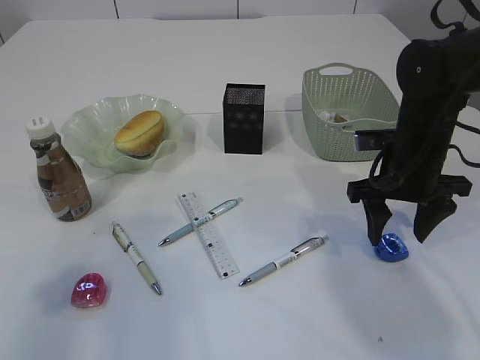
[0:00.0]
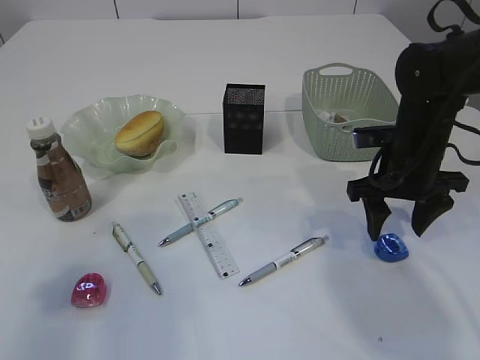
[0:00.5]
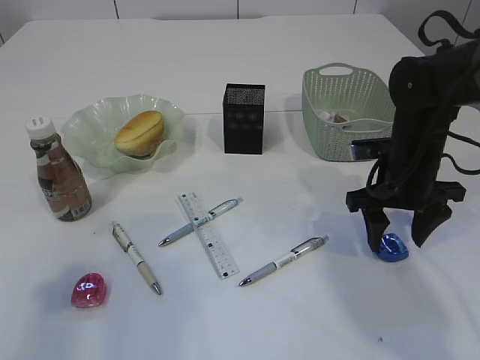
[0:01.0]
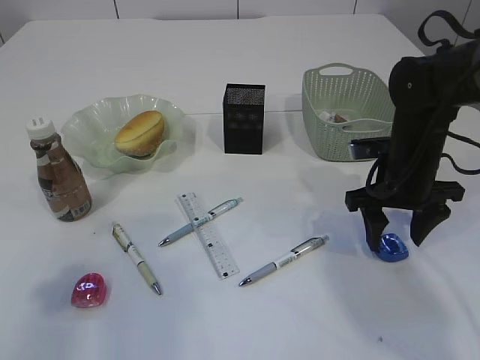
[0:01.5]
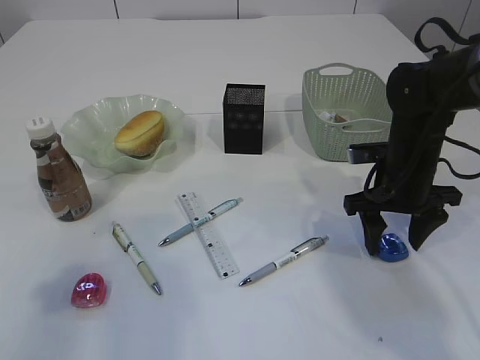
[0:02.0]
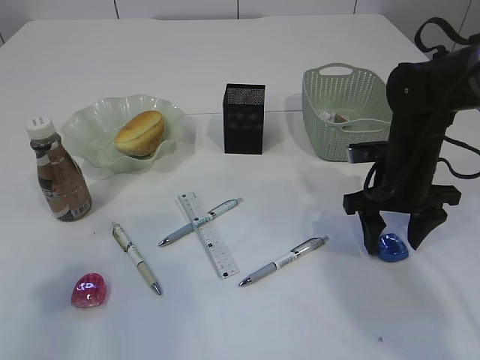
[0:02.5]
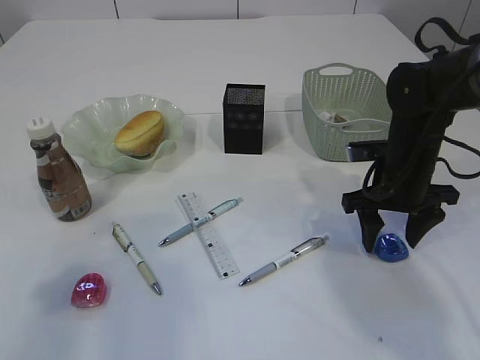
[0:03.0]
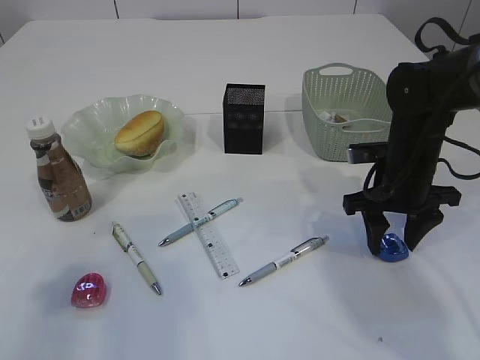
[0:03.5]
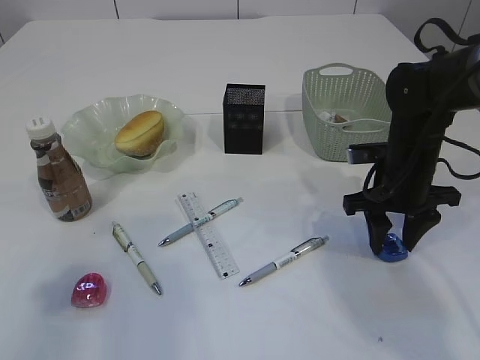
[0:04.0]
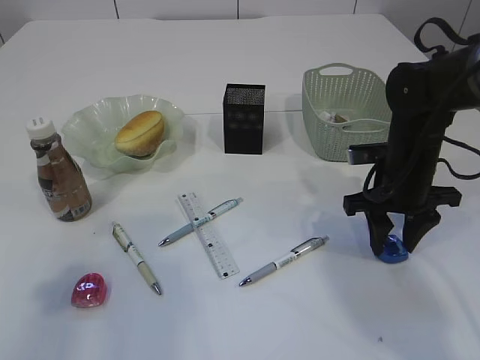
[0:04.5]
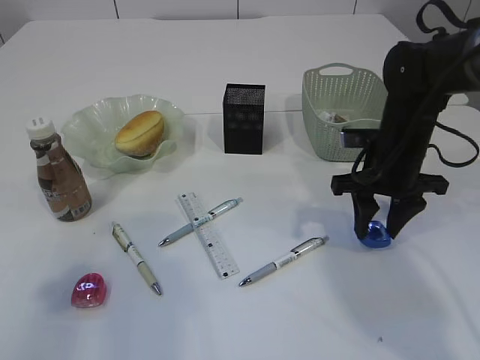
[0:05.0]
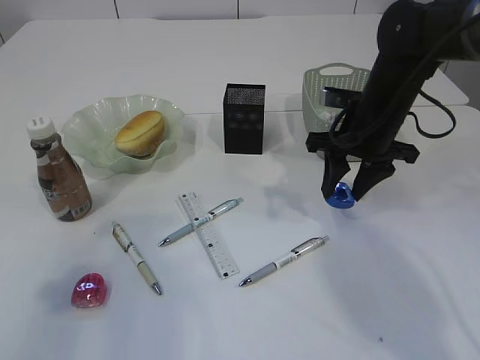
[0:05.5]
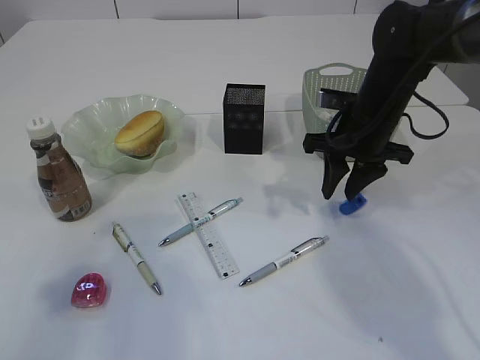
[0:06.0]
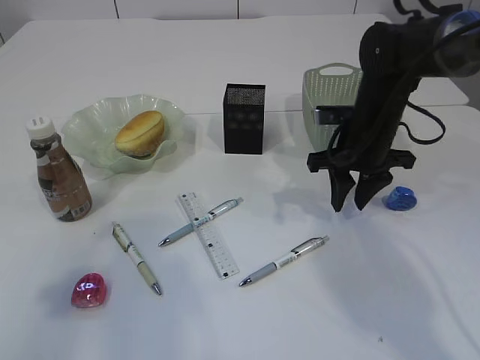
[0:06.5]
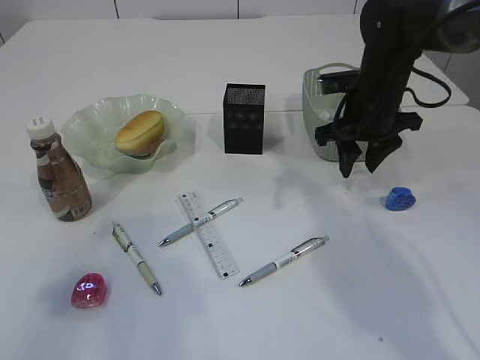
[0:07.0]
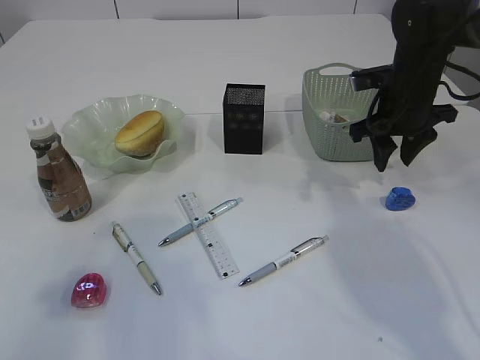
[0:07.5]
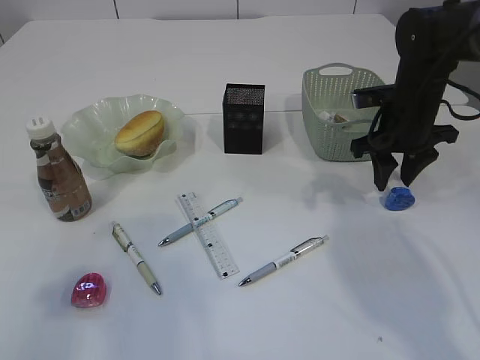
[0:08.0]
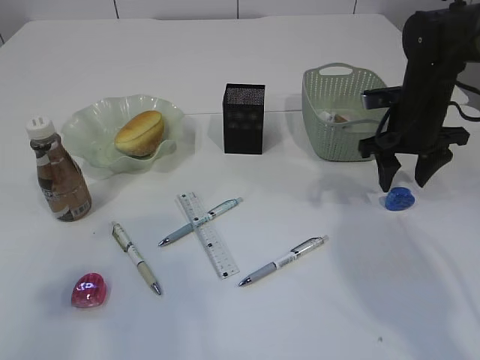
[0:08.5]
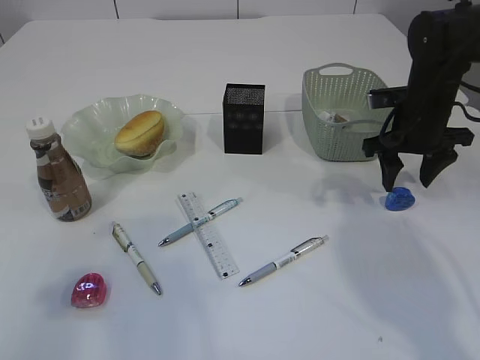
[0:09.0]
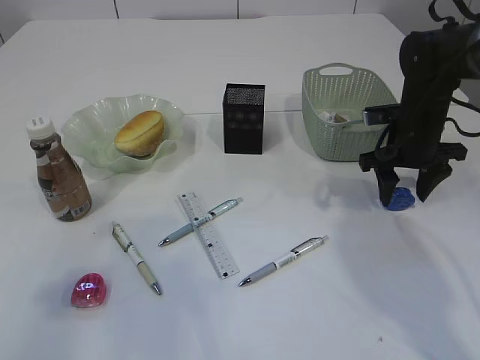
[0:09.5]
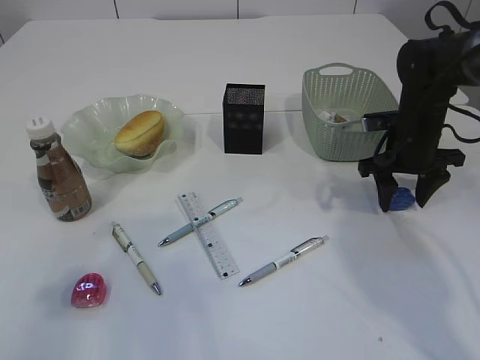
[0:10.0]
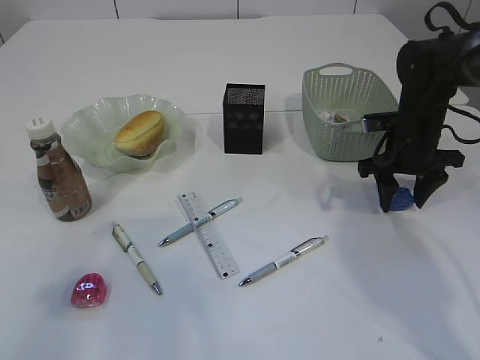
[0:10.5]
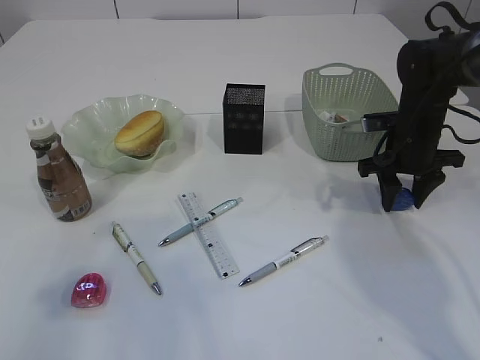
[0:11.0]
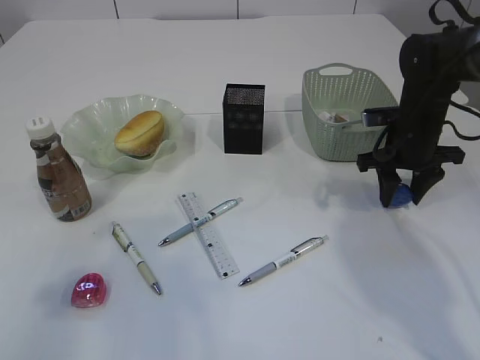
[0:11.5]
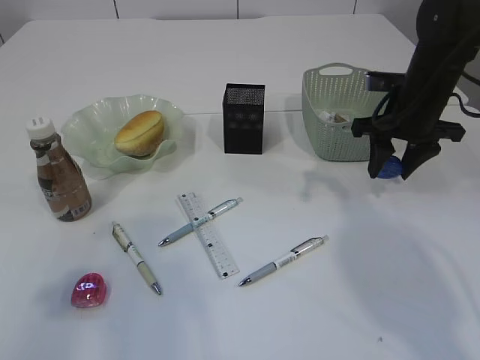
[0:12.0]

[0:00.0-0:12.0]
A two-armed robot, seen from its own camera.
0:00.0 to 0:02.0: The grippers stay close to where they were, moving slightly.
0:02.0 to 0:04.0: Neither gripper changes place.
0:04.0 to 0:06.0: The right gripper travels upward by some 5 cm.
0:06.0 to 0:08.0: The right gripper travels to the right by about 5 cm.
0:08.0 to 0:10.0: The grippers stay close to where they were, moving slightly.
0:10.0 to 0:12.0: The right gripper heads upward, covering roughly 5 cm.

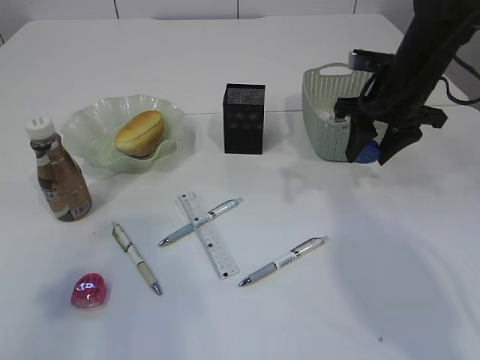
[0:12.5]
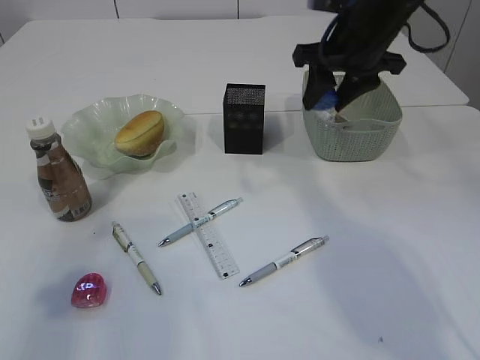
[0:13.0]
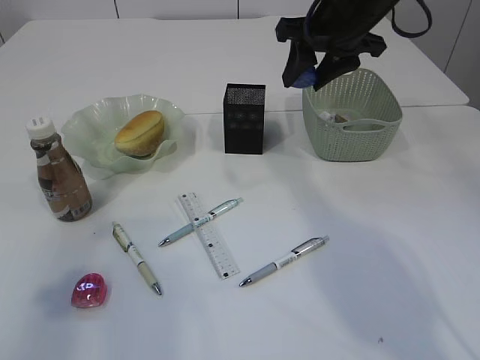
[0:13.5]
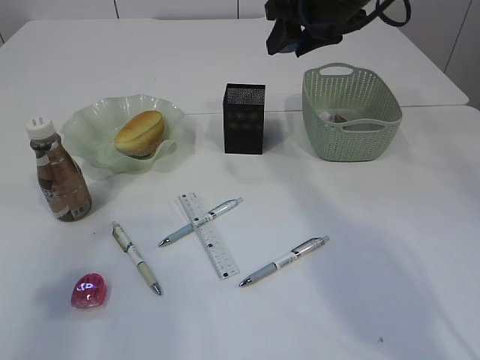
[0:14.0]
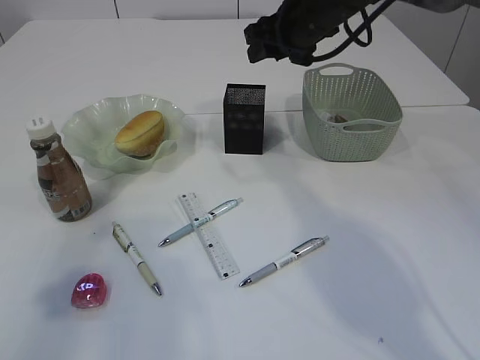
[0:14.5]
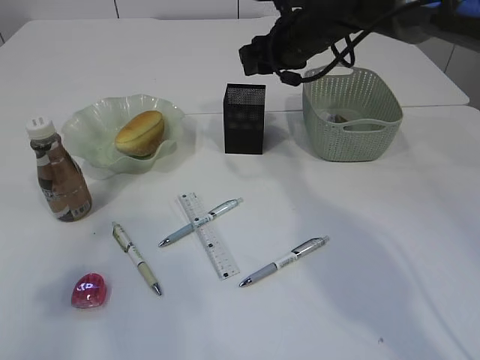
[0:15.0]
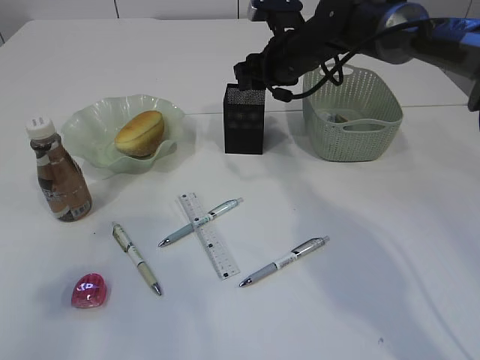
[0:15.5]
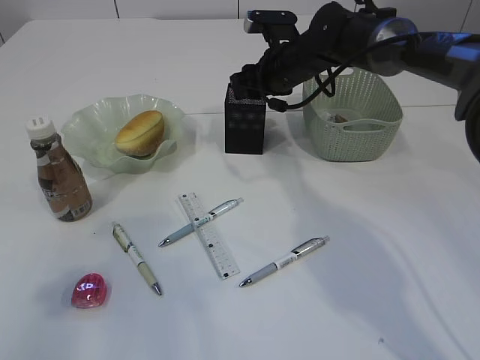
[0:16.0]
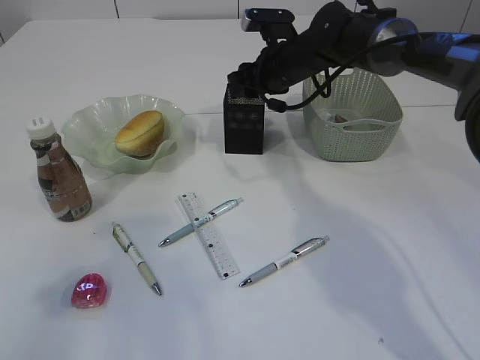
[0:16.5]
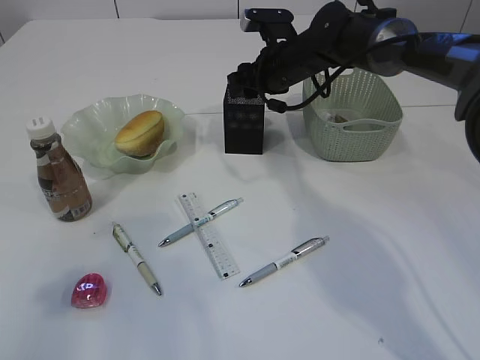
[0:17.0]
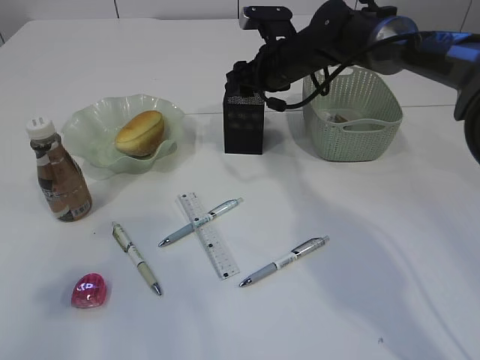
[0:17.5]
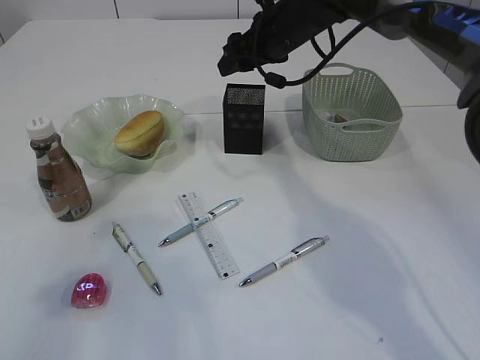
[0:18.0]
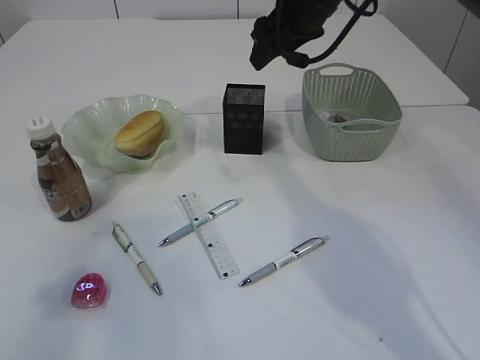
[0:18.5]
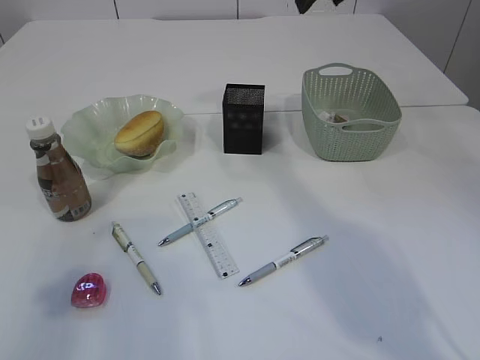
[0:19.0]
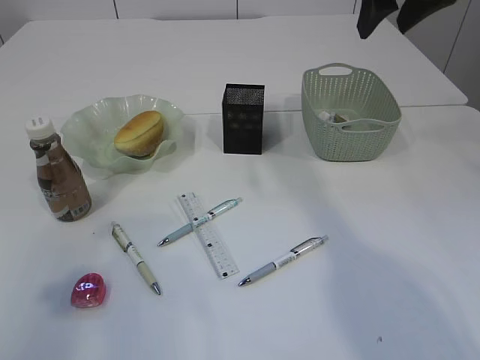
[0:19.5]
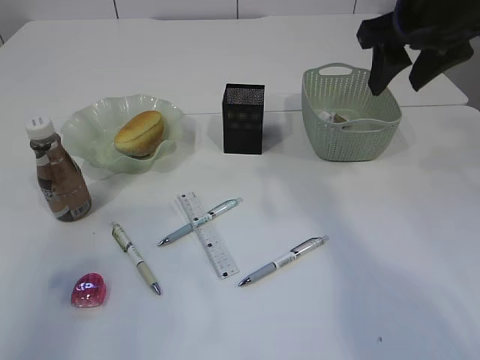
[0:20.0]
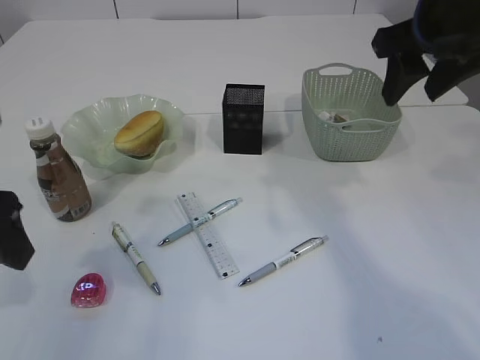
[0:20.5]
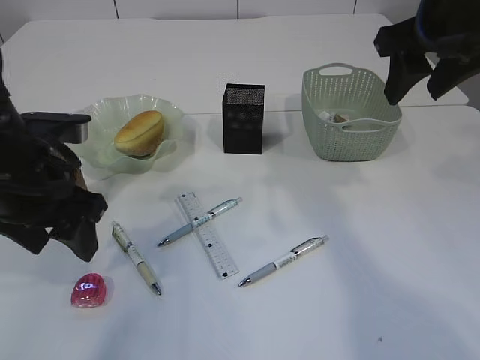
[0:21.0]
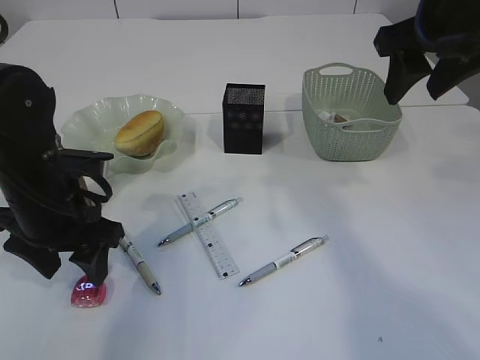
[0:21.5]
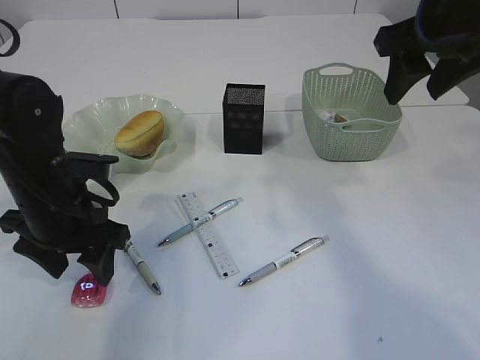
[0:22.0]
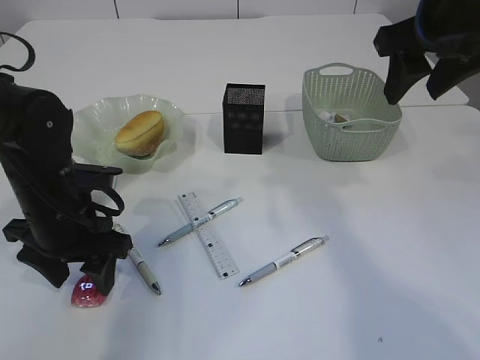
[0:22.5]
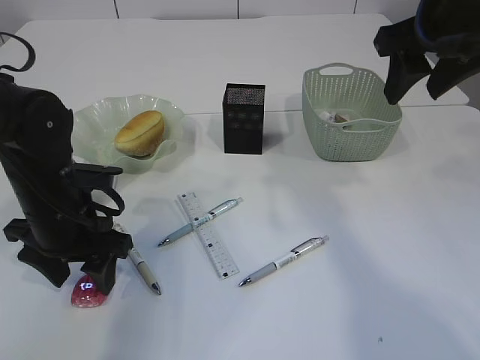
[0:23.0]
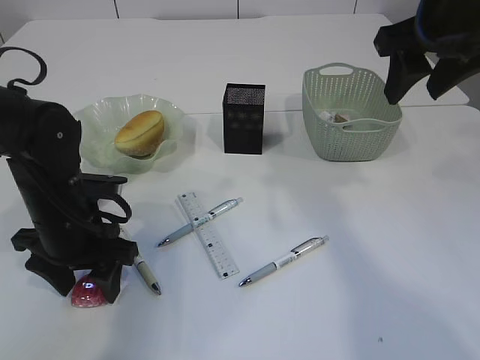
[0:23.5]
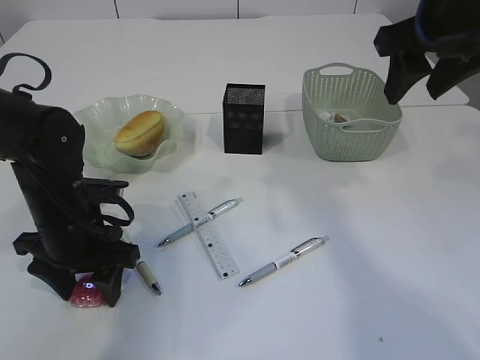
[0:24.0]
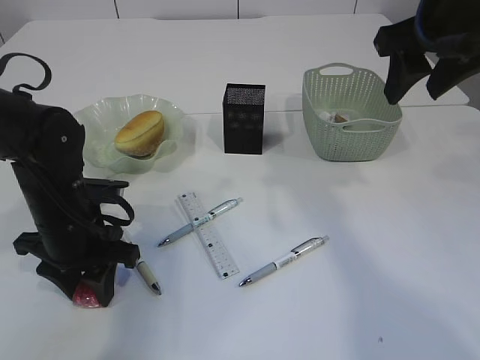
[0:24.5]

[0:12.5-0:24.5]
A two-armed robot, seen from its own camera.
Step, 0:12.5 to 0:18.0: Place the blue pencil sharpener into the pen holder.
0:12.5 to 0:14.5: The right gripper travels to the left, forward and upward by some 15 cm.
0:14.5 to 0:16.5: The right gripper moves downward, roughly 10 cm.
0:16.5 to 0:18.5: The right gripper heads upward, covering some 10 cm.
0:18.5 to 0:20.5: The right gripper travels backward and to the right by about 20 cm. Meanwhile the left gripper is displaced forward, downward and to the right by about 10 cm.
0:20.5 to 0:22.5: The left gripper is displaced downward, forward and to the right by roughly 15 cm.
0:22.5 to 0:24.5: The left gripper closes its fingers.

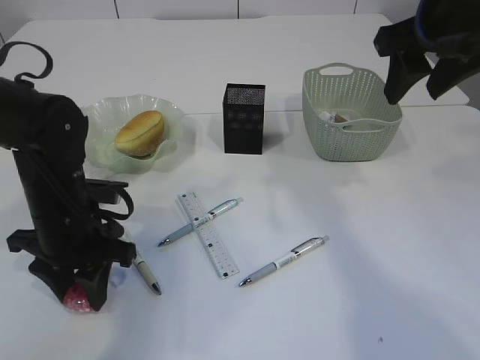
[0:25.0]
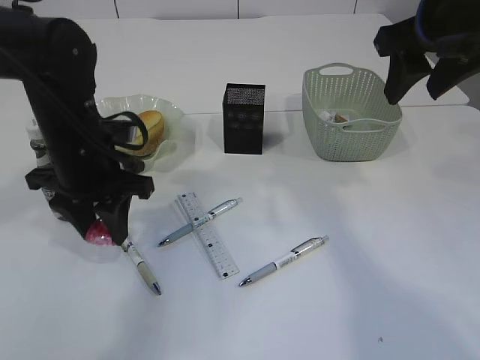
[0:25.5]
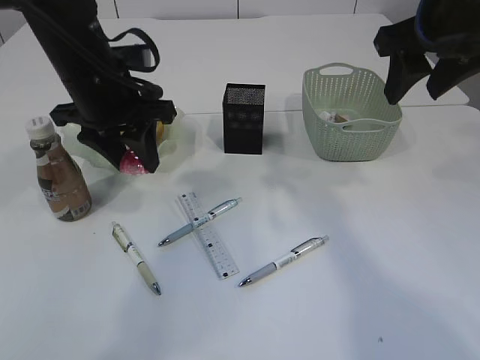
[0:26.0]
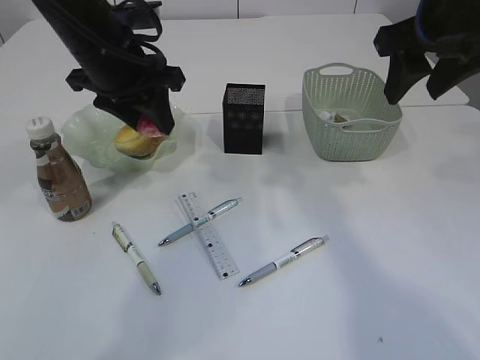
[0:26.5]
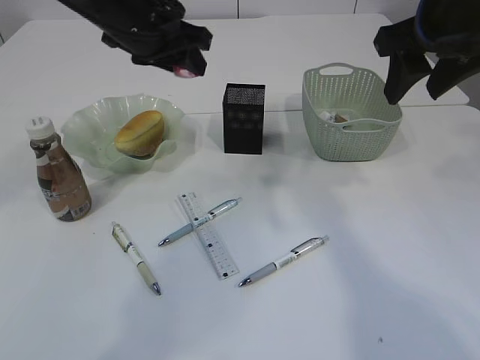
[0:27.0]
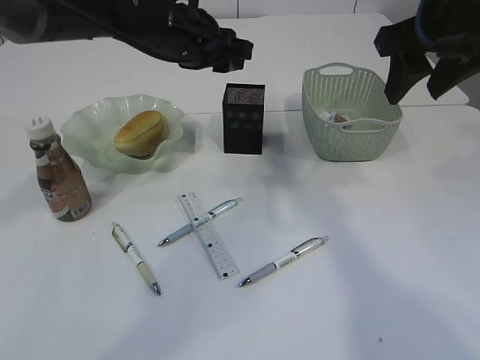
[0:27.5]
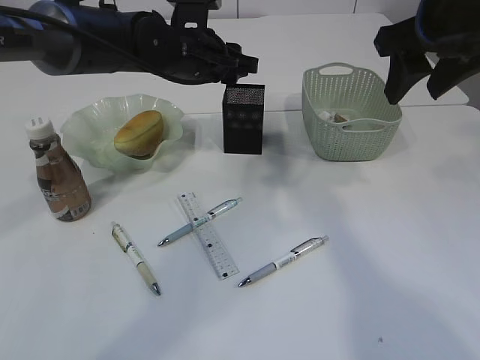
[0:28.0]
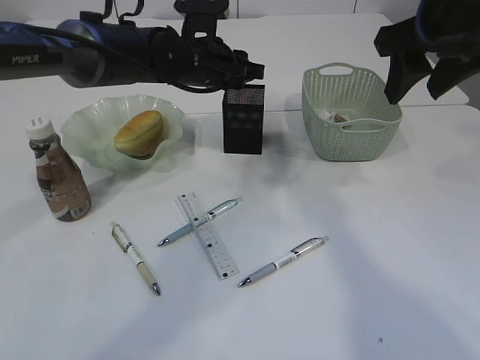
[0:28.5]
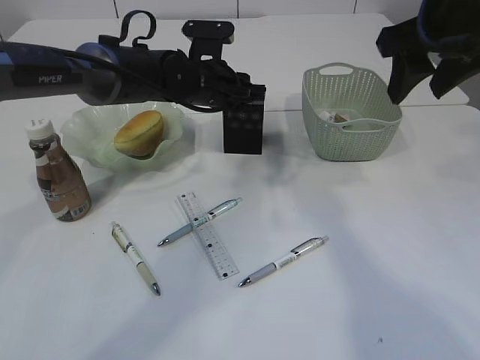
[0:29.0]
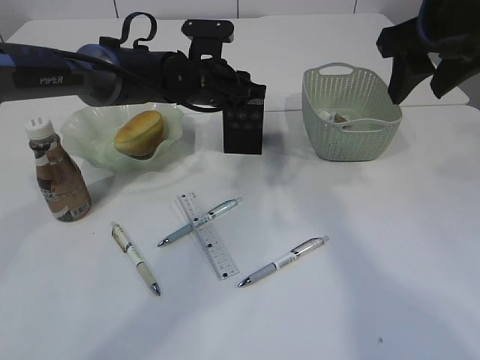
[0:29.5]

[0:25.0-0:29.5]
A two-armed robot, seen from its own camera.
0:25.0 to 0:27.0: The left gripper moves upward, forward and to the right, roughly 20 cm.
0:27.0 to 0:29.5: The left gripper shifts roughly 15 cm downward, to the right and forward.
